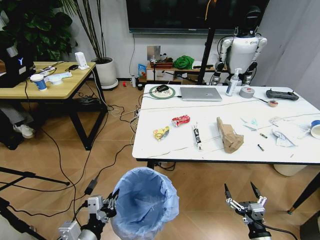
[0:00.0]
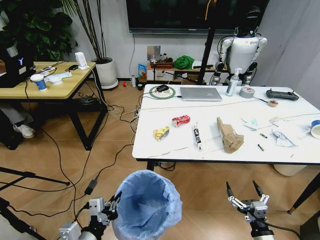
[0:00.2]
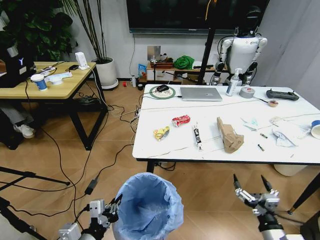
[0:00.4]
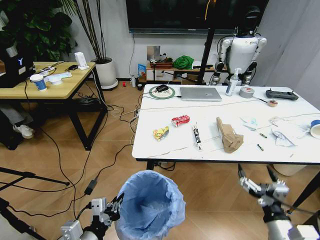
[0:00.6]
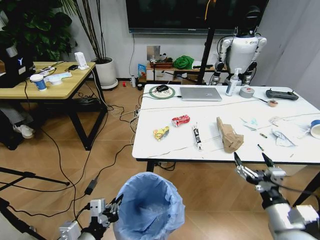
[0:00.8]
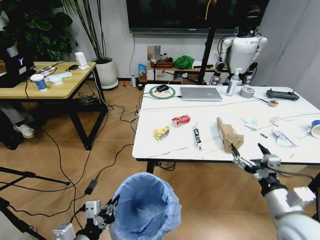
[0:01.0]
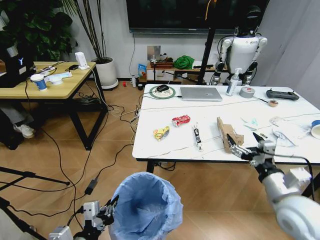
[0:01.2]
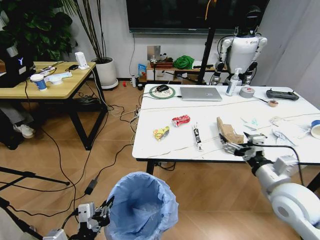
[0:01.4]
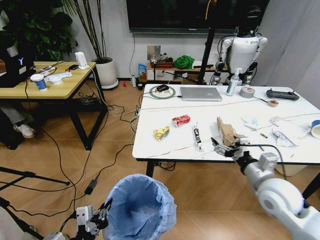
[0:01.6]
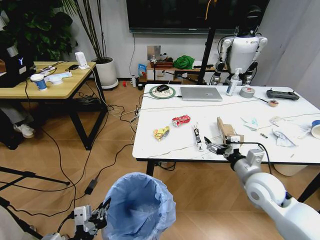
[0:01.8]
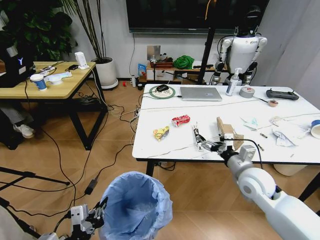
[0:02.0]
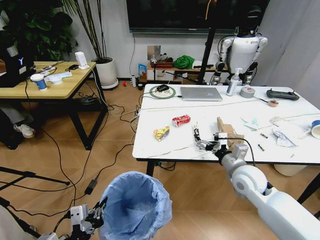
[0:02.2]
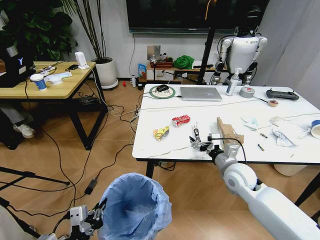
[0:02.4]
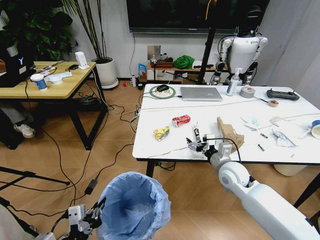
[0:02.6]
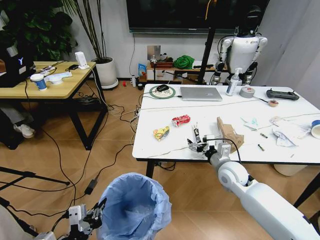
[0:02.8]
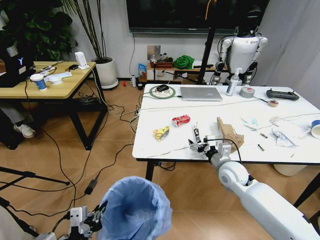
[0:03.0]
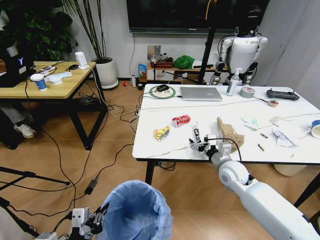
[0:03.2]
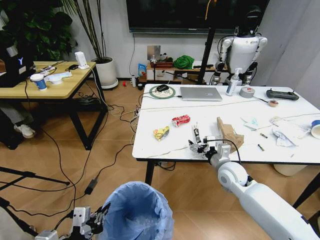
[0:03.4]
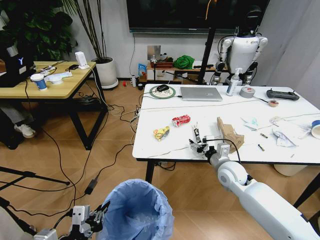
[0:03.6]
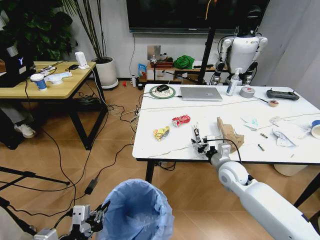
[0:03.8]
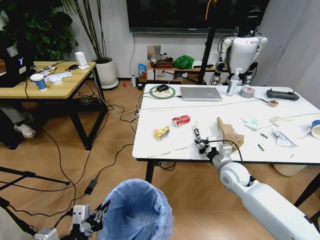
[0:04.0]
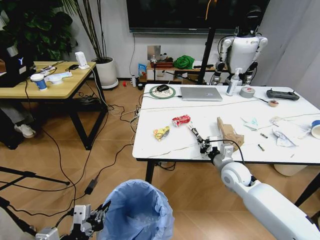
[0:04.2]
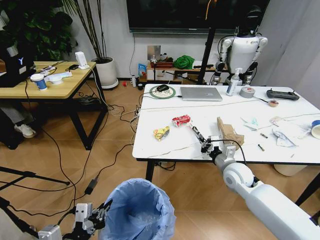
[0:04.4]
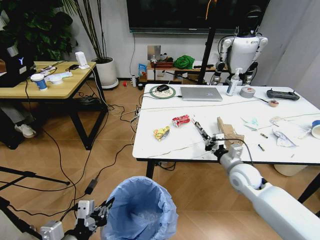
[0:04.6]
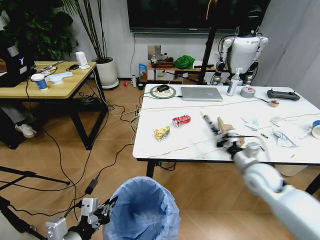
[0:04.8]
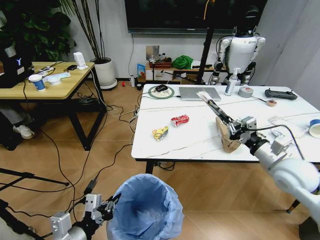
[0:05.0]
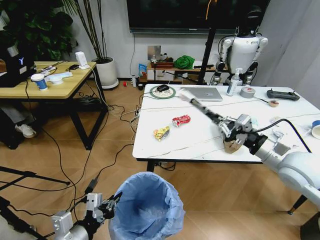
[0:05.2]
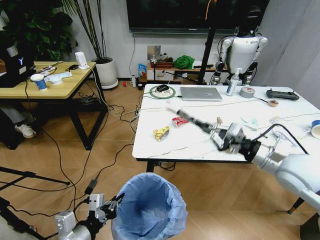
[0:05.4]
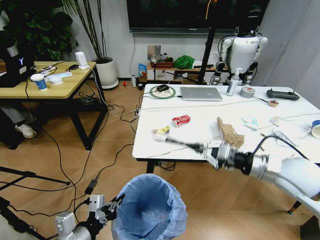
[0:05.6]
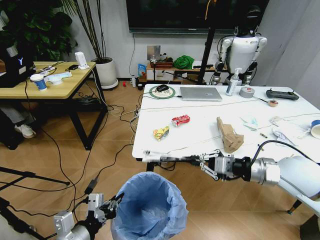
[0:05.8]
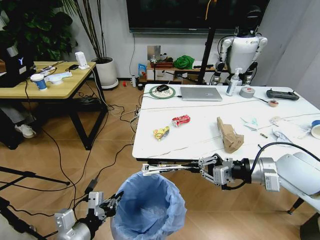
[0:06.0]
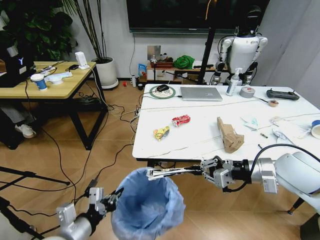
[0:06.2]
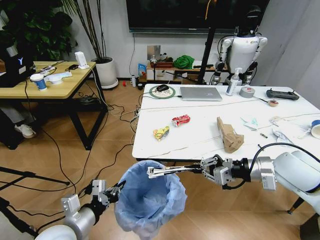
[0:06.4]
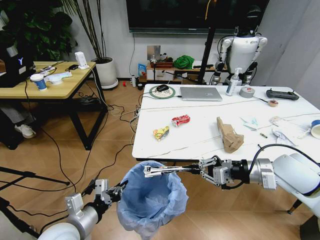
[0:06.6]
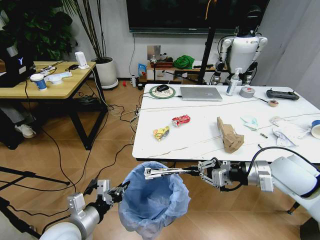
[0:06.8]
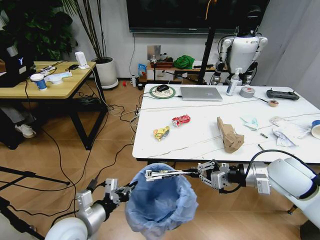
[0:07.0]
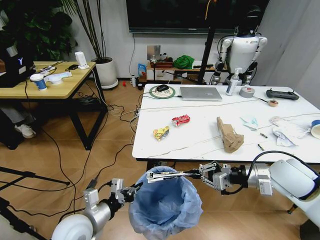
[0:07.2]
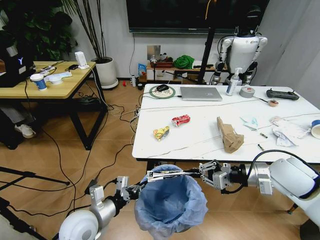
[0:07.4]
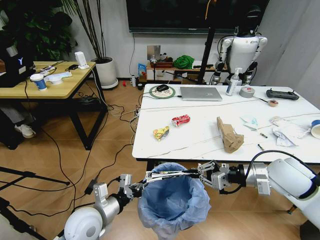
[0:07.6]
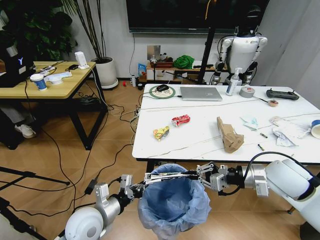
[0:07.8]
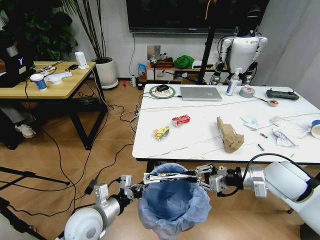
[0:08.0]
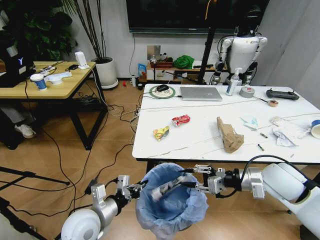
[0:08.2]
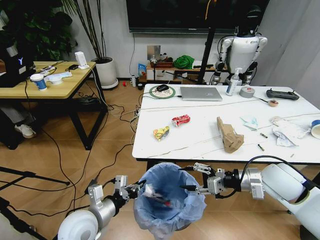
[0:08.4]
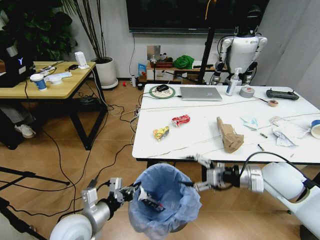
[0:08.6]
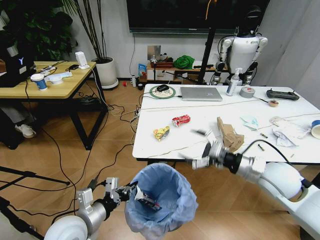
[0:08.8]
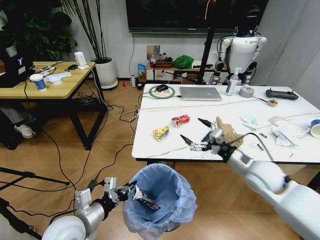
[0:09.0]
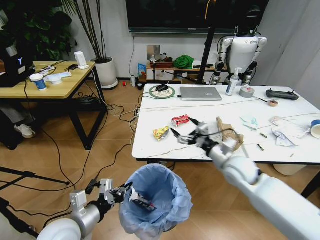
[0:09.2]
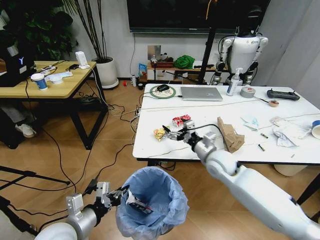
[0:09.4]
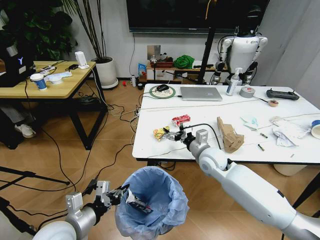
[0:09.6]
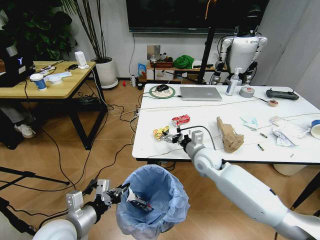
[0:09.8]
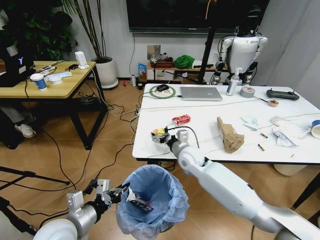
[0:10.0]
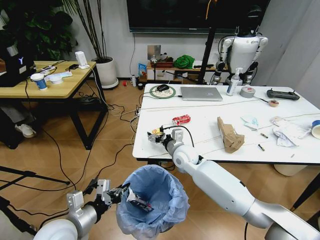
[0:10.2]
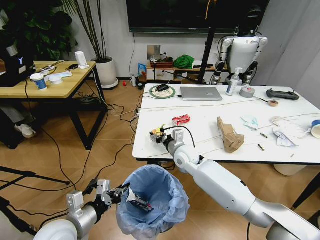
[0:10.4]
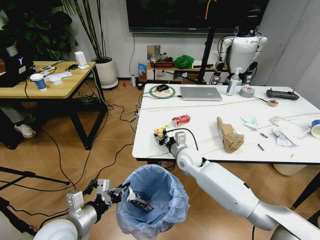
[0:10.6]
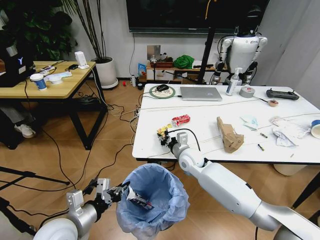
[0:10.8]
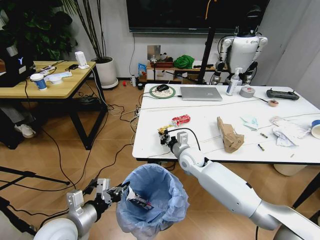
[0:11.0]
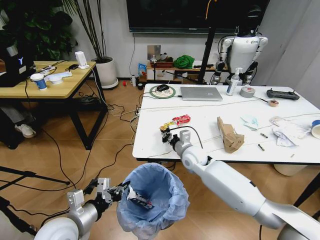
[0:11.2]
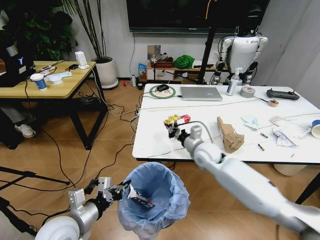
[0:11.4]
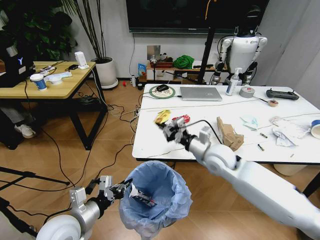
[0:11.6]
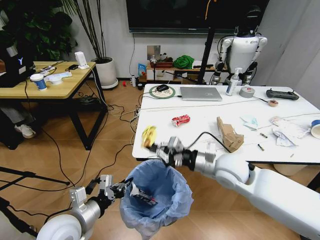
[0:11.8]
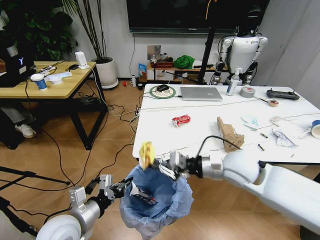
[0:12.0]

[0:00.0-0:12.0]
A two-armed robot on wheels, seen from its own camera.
Task of the whole recording: Pick up the trash bin and place the trash from the table into it.
0:00.0 to 0:01.6: The right gripper moves upward and forward, approximately 25 cm.
0:01.6 to 0:03.0: The right gripper moves forward, downward and to the left, some 15 cm.
0:03.0 to 0:04.4: The right gripper closes its fingers.
0:04.4 to 0:06.0: The right gripper goes about 20 cm upward and backward.
0:06.0 to 0:07.6: The left gripper moves forward, some 10 cm.
0:07.6 to 0:09.0: The left gripper changes place by about 5 cm; the right gripper is displaced downward by some 5 cm, and opens its fingers.
0:09.0 to 0:10.4: The right gripper moves to the left and forward, roughly 25 cm.
0:10.4 to 0:12.0: The right gripper shifts approximately 20 cm to the right, backward and upward, and closes.

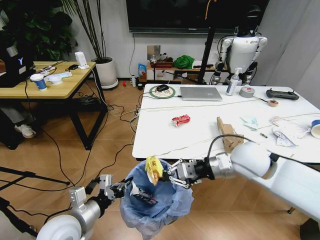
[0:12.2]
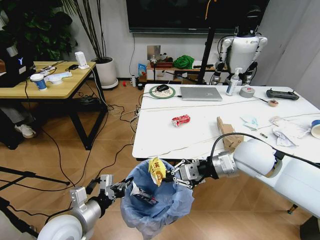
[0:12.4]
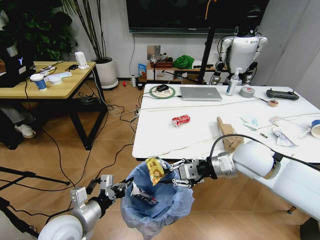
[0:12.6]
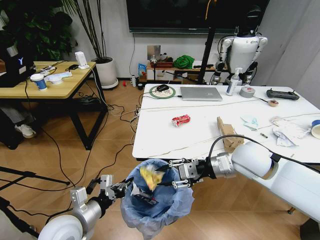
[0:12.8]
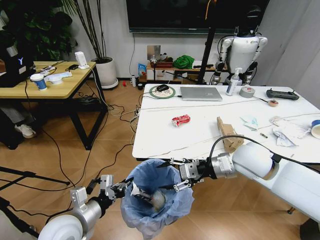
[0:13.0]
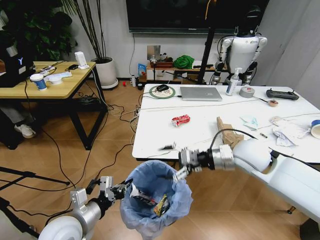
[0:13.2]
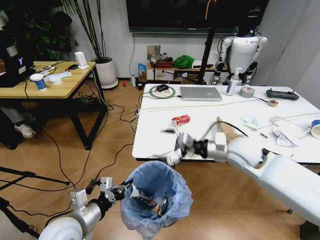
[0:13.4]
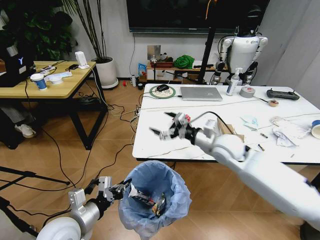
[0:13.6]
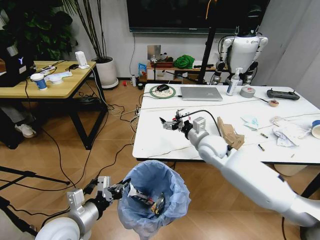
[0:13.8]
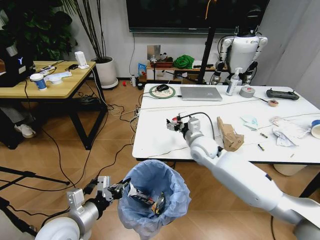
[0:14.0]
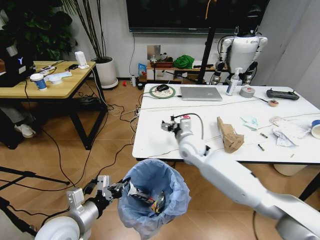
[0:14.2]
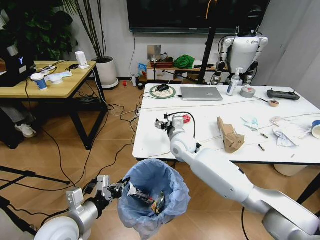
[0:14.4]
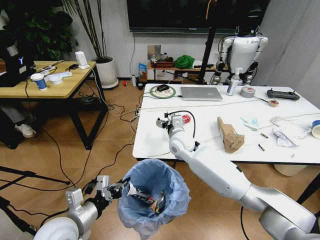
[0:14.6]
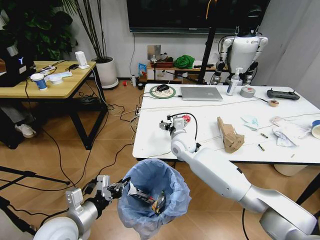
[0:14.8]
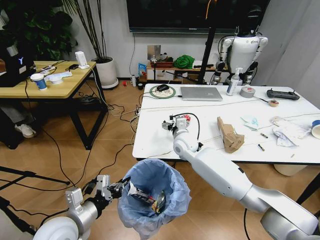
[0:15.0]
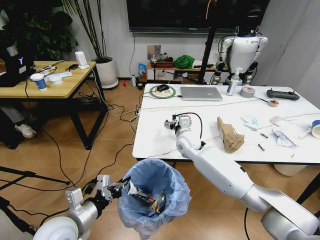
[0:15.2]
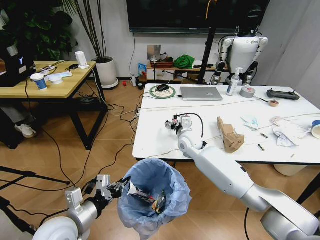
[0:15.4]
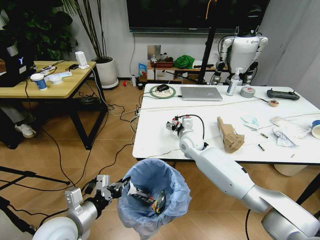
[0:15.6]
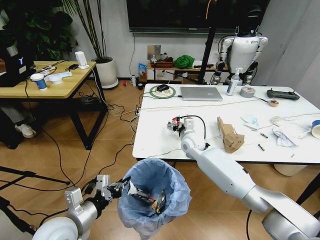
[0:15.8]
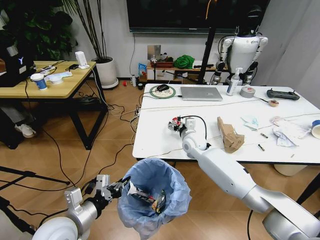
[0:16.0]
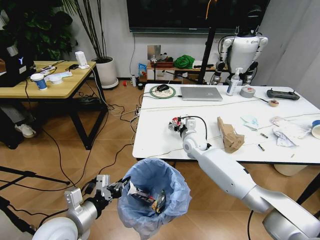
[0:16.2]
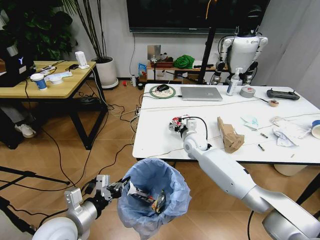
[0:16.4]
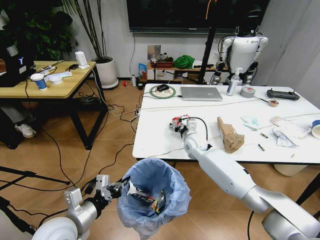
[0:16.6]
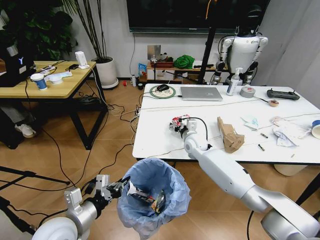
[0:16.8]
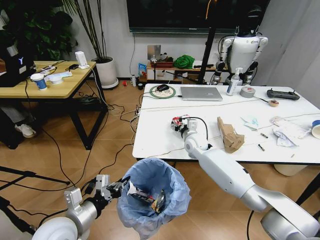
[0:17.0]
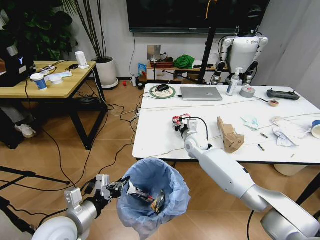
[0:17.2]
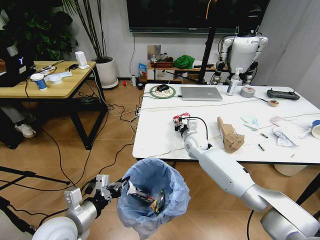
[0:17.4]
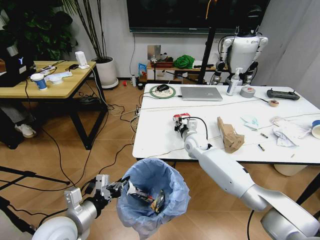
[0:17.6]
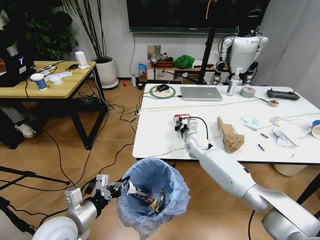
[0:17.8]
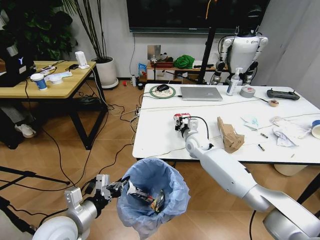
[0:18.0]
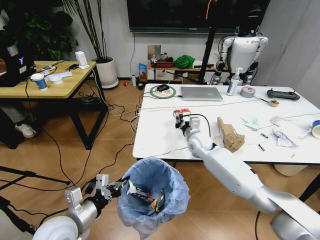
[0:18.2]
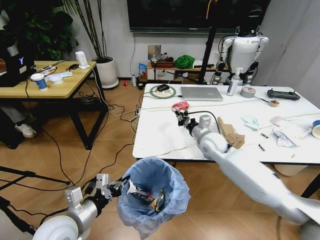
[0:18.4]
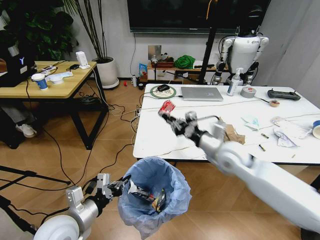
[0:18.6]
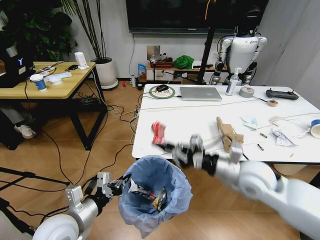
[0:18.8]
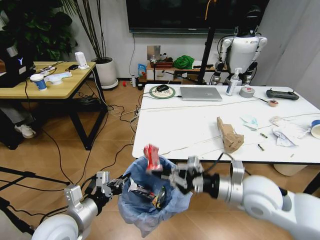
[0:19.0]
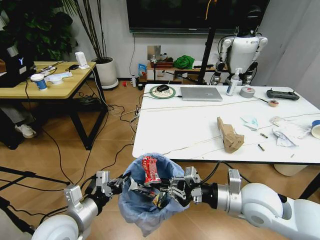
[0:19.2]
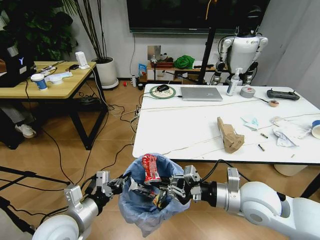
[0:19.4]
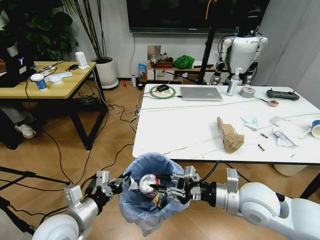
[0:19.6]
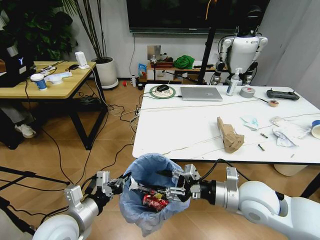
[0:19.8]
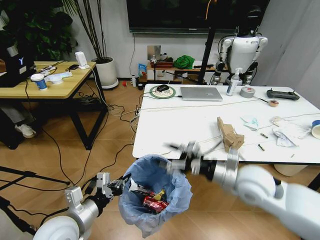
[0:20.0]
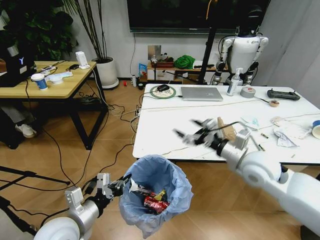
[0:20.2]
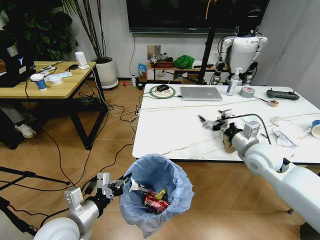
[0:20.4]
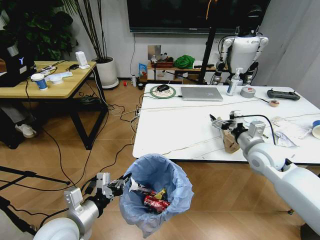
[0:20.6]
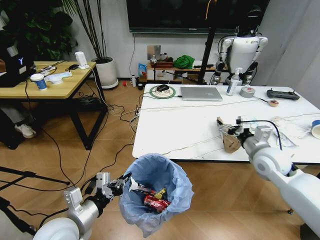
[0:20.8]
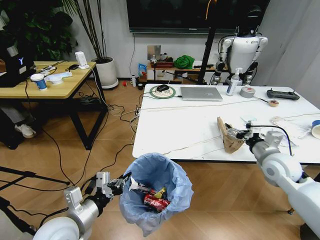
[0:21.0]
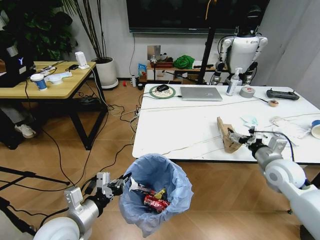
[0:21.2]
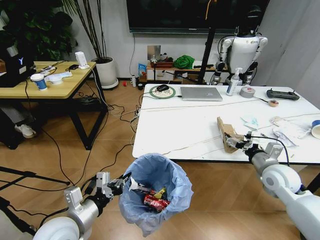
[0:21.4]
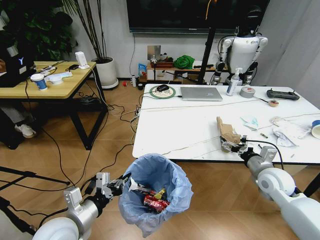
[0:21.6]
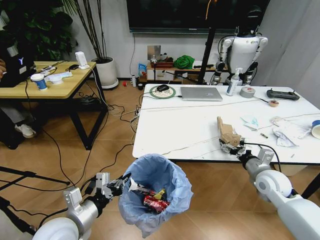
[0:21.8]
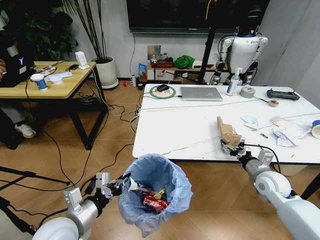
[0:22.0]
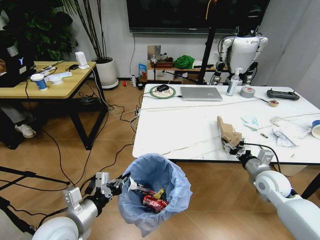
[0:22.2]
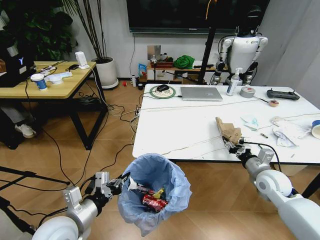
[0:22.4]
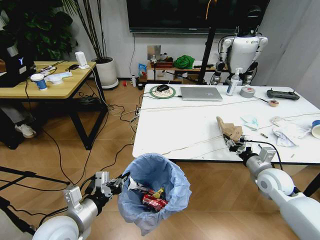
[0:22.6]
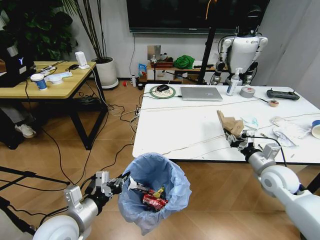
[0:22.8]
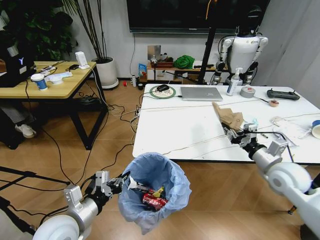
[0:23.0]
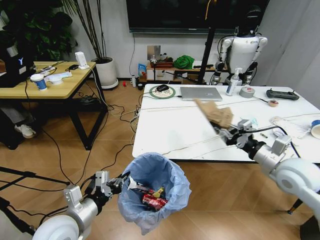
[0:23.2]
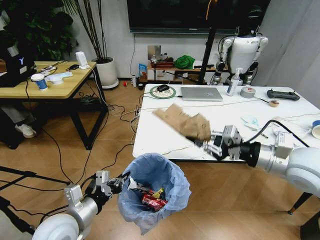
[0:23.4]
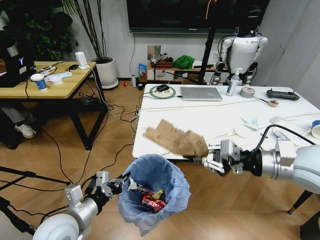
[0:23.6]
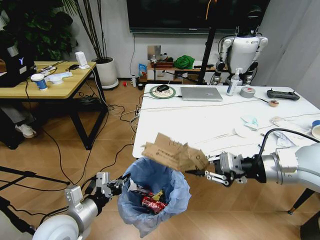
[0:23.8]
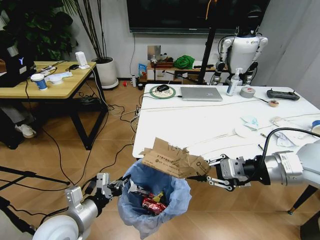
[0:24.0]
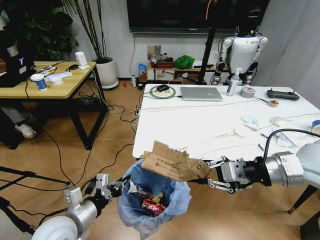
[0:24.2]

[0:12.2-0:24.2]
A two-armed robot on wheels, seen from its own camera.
Task of the whole recording: Pick up the trash bin and place the trash from the table into it.
0:12.2 to 0:13.8: The right gripper is displaced forward, downward and to the left by about 15 cm, and opens up.
0:13.8 to 0:15.2: The right gripper shifts roughly 10 cm to the left and forward.
0:15.2 to 0:16.6: The right gripper ends up some 5 cm from where it was.
0:16.6 to 0:18.2: The right gripper closes its fingers.
0:18.2 to 0:19.8: The right gripper shifts approximately 25 cm backward, and opens its fingers.
0:19.8 to 0:21.2: The right gripper is displaced to the right and forward by approximately 15 cm, and opens.
0:21.2 to 0:22.6: The right gripper heads downward, covering some 5 cm, and closes up.
0:22.6 to 0:24.2: The right gripper goes roughly 20 cm upward.
